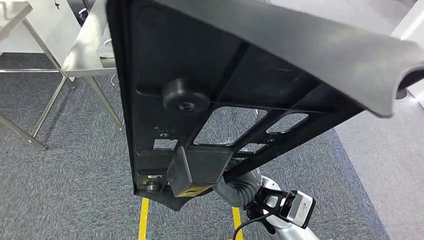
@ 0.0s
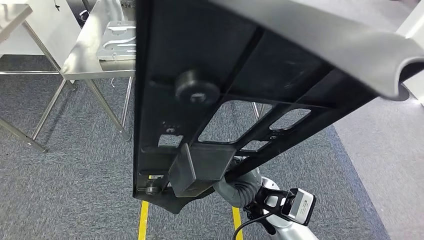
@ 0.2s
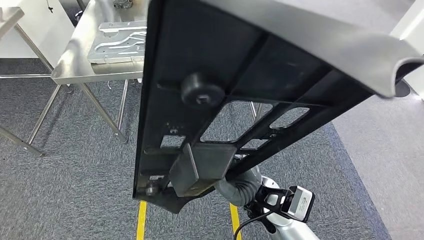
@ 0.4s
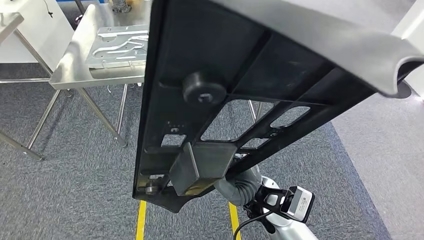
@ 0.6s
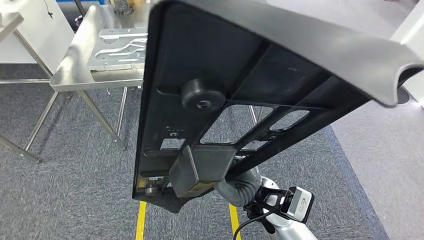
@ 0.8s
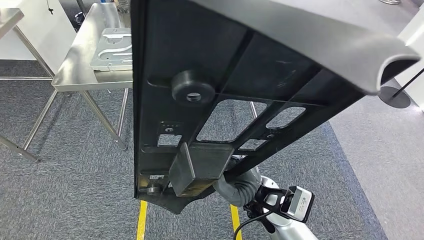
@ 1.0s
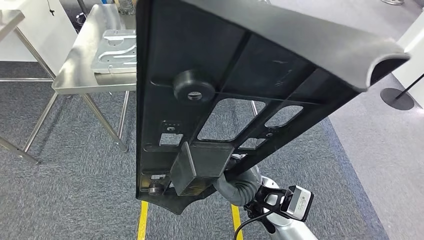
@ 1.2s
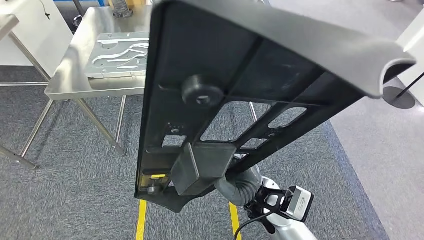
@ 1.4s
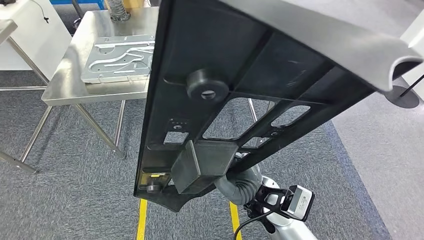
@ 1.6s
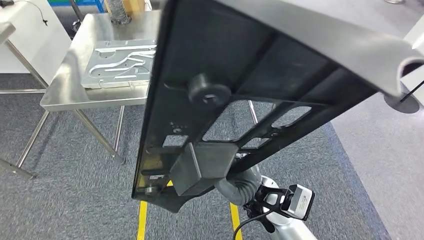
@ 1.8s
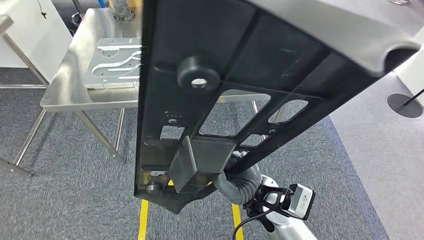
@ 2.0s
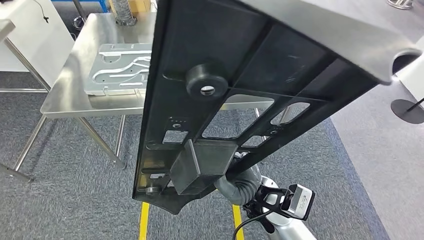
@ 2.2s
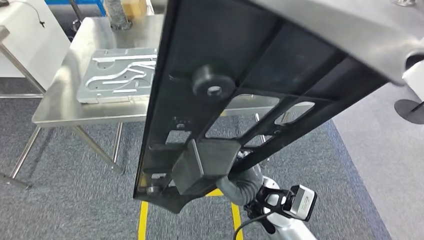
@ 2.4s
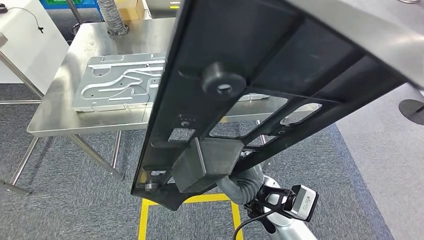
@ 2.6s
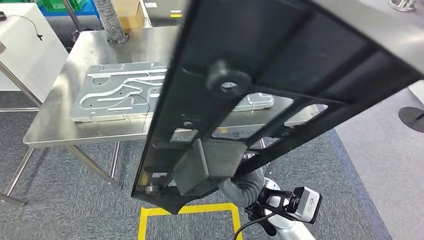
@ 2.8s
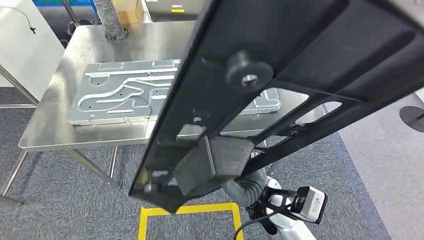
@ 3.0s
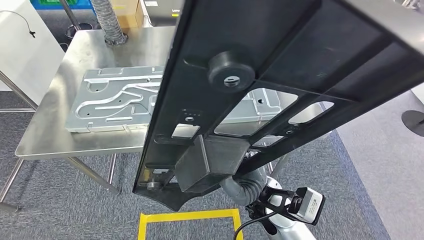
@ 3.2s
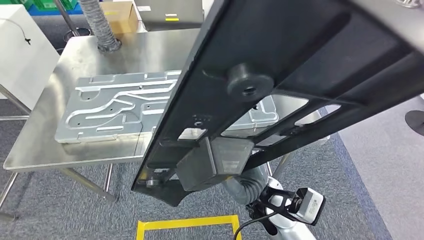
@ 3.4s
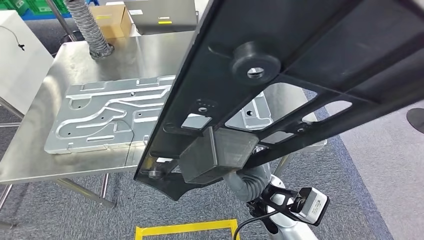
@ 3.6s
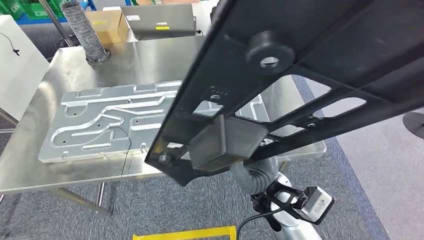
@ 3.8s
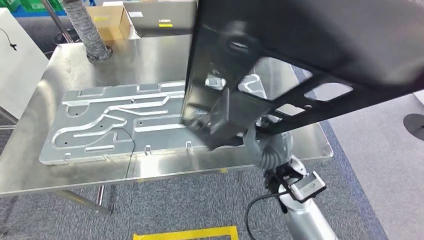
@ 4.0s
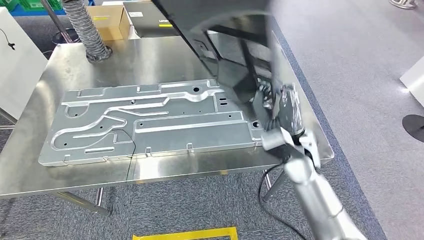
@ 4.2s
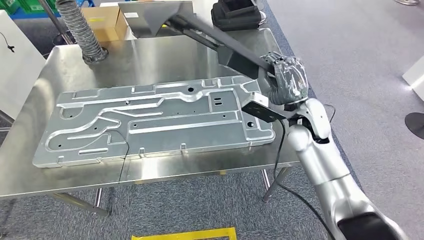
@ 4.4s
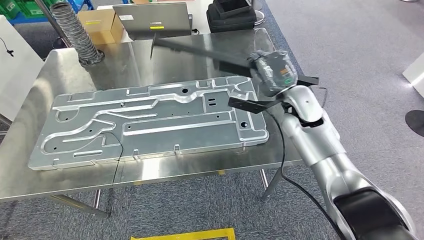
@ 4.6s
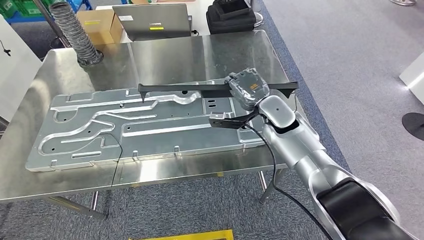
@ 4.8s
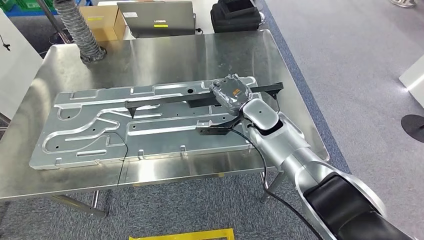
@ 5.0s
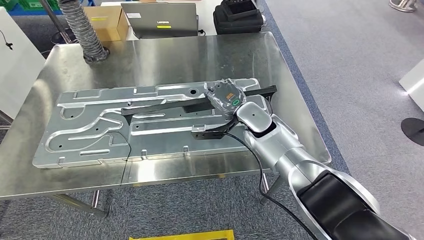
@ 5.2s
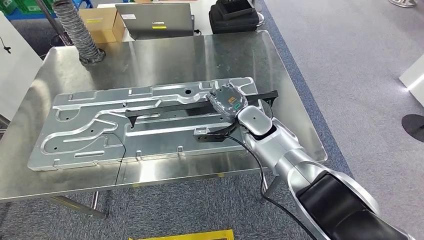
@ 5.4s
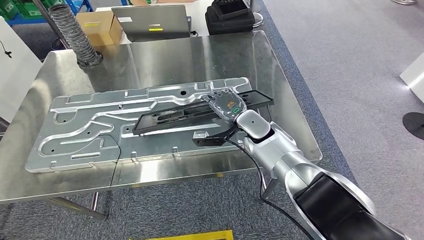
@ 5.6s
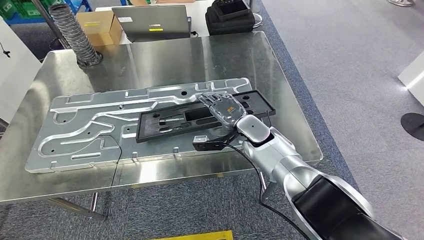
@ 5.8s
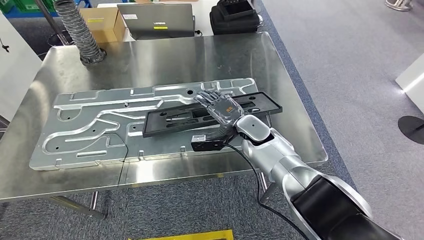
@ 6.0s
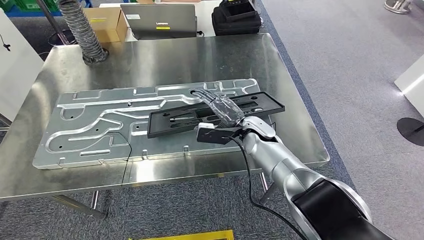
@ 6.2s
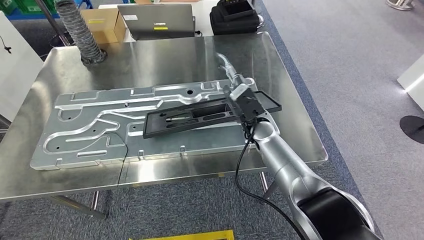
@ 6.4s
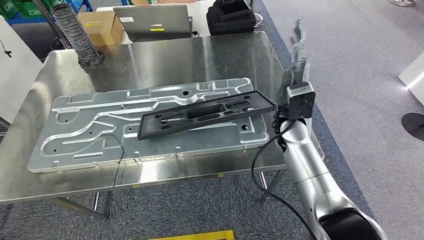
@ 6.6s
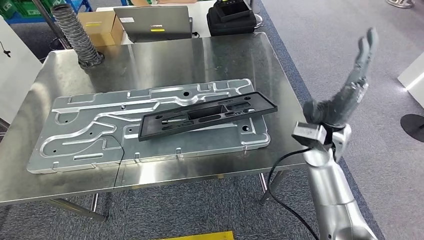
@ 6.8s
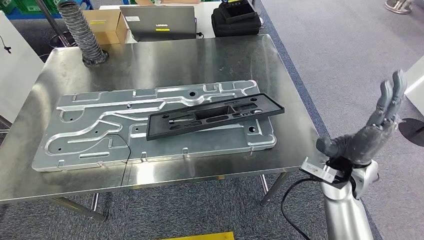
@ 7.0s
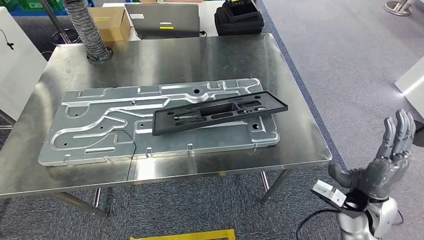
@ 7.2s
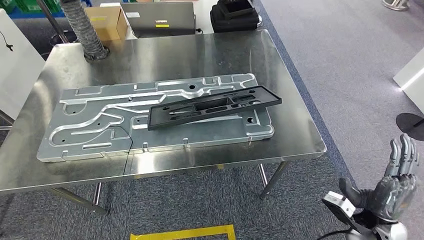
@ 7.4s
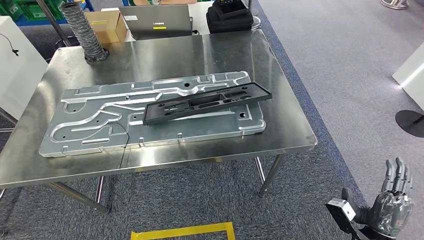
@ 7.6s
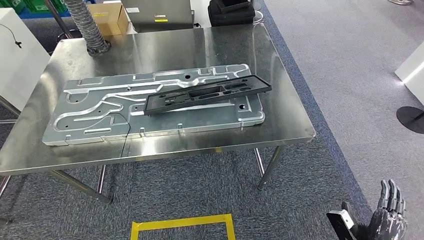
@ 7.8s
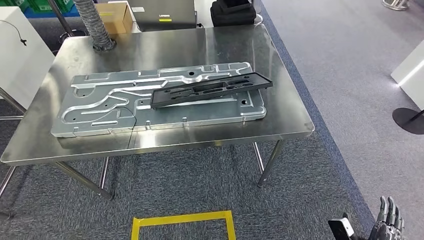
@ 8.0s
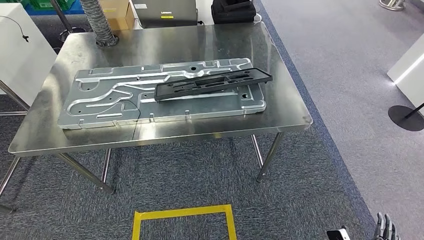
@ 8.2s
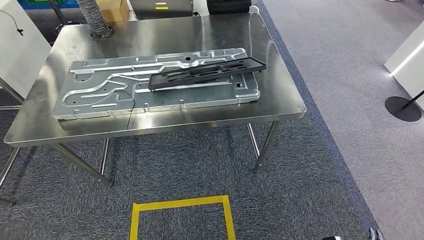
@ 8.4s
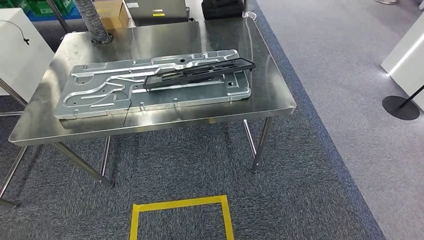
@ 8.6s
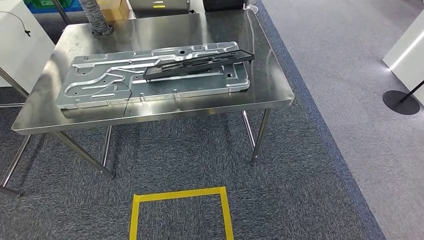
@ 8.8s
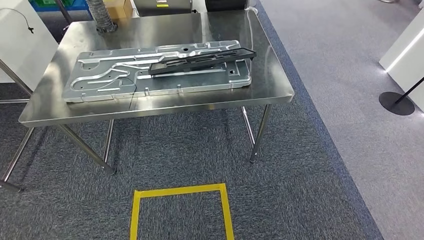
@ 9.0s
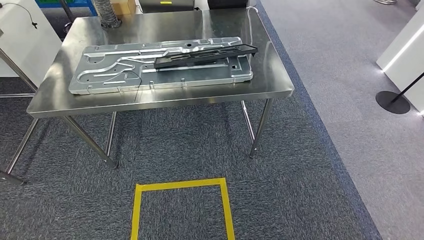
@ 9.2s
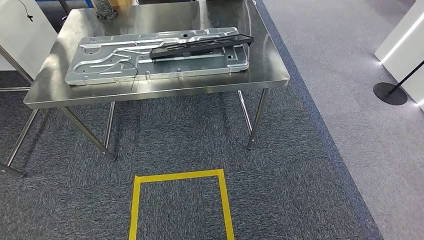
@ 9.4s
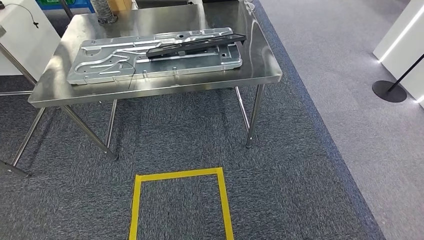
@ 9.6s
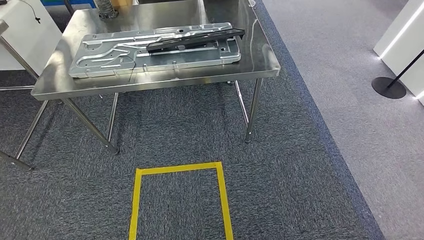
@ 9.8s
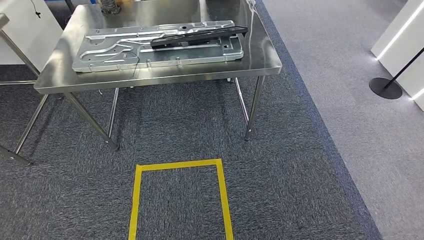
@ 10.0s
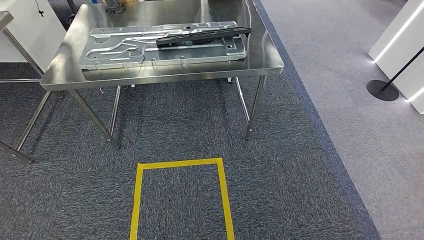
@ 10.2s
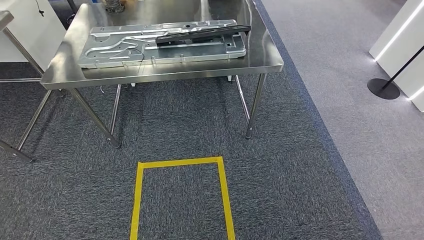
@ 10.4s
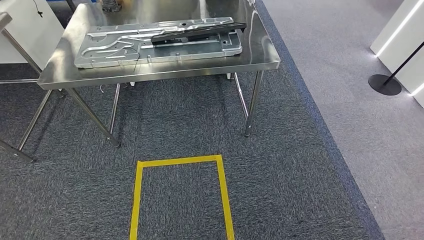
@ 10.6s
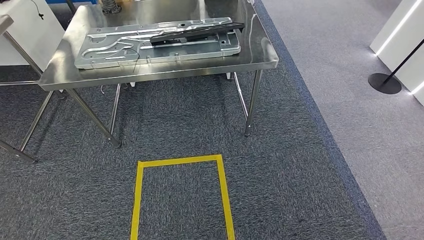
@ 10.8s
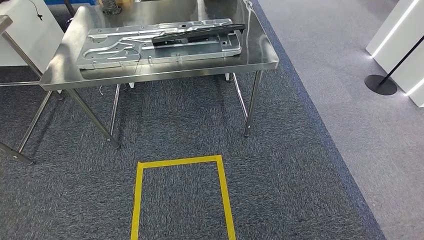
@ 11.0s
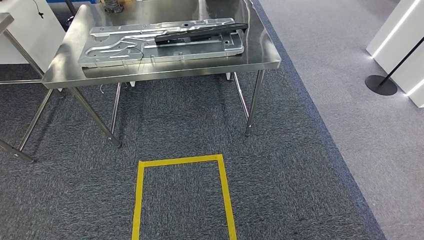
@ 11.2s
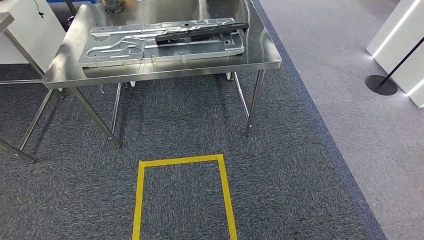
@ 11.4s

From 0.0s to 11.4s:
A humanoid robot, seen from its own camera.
Step, from 0.0s to 3.6s: Move the large material to the workbench.
Step, from 3.8s to 7.8s: Insert the large material into the corresponding slot on the workbench.
Step, from 8.0s to 11.4s: Return to the initial position at the shelf.
From 10.0s to 11.4s: The hands stay close to where they were, moving slightly.

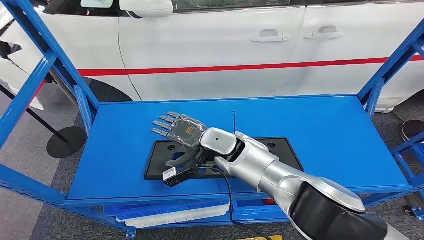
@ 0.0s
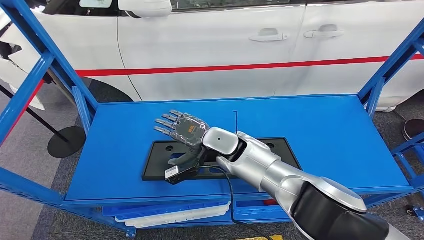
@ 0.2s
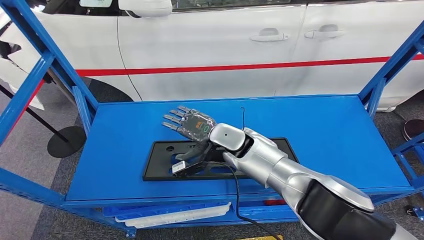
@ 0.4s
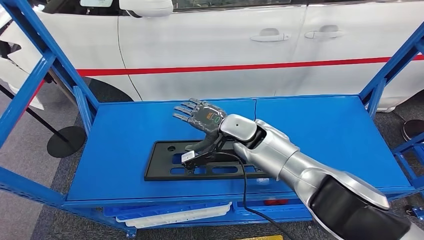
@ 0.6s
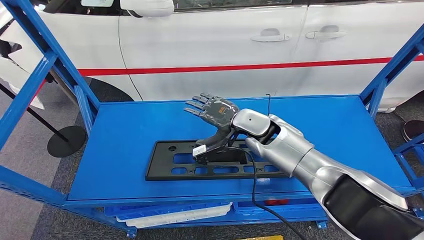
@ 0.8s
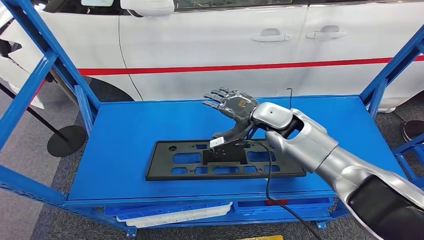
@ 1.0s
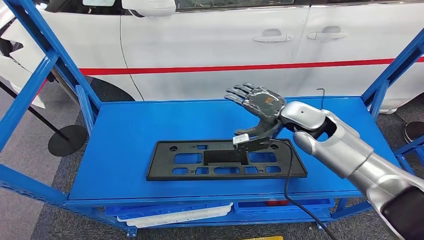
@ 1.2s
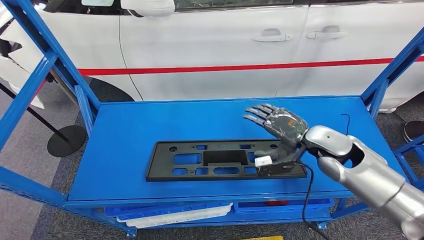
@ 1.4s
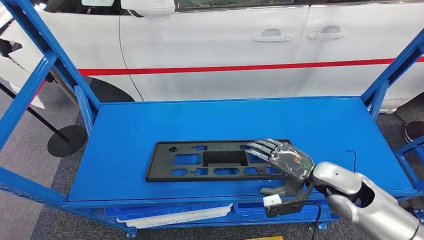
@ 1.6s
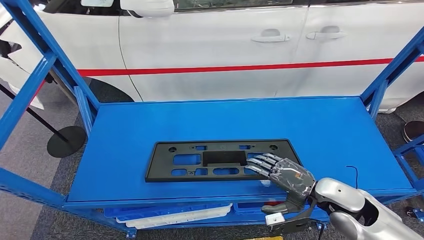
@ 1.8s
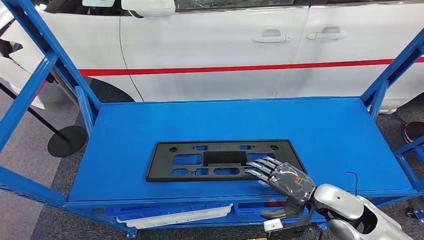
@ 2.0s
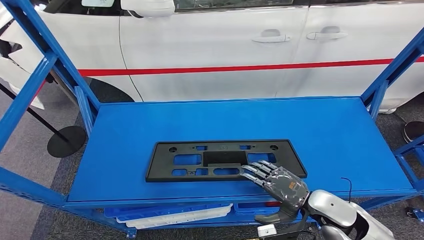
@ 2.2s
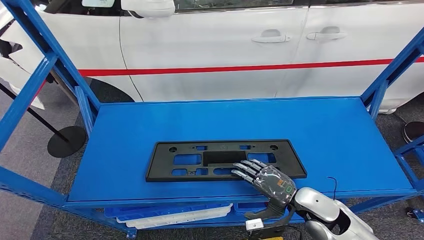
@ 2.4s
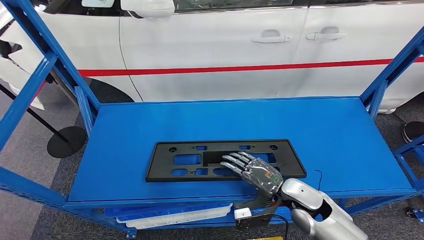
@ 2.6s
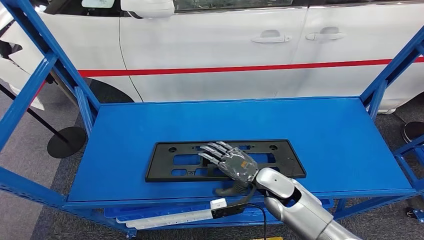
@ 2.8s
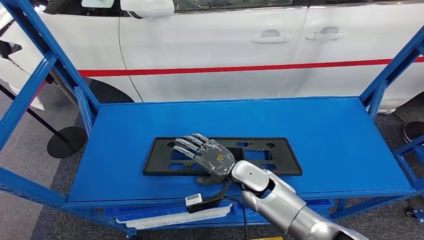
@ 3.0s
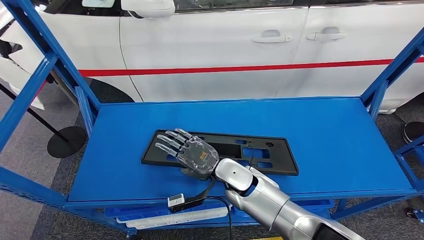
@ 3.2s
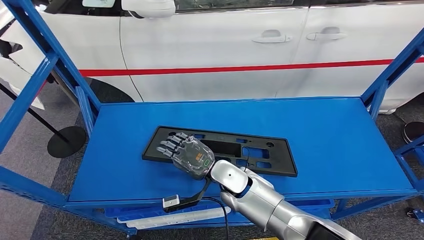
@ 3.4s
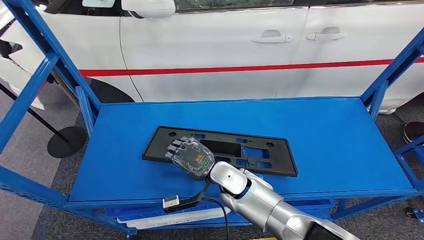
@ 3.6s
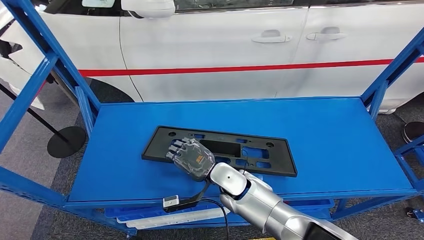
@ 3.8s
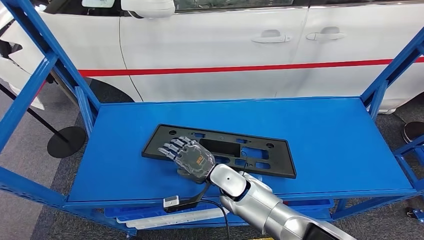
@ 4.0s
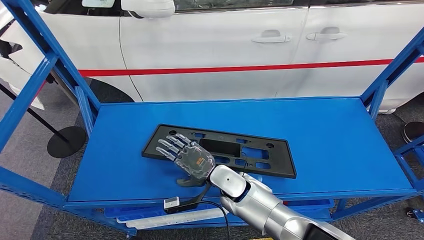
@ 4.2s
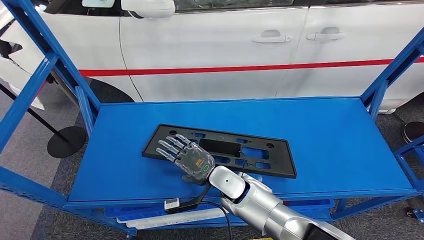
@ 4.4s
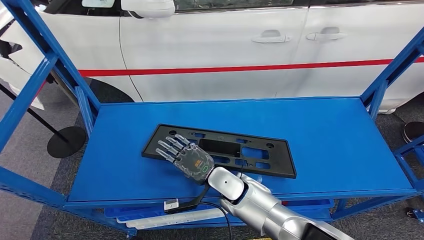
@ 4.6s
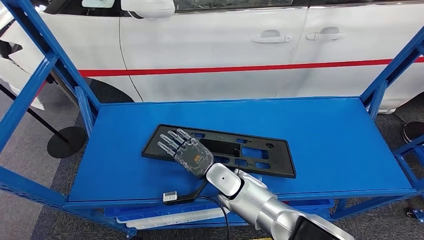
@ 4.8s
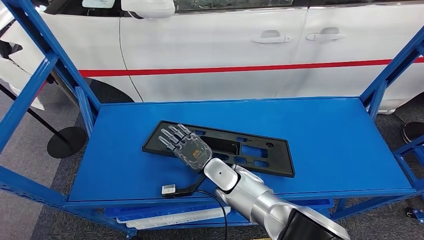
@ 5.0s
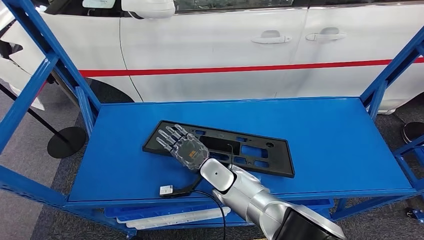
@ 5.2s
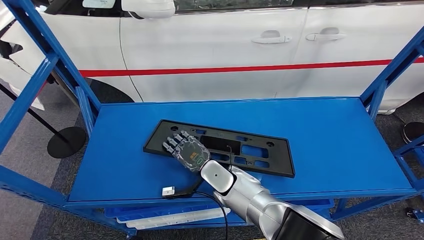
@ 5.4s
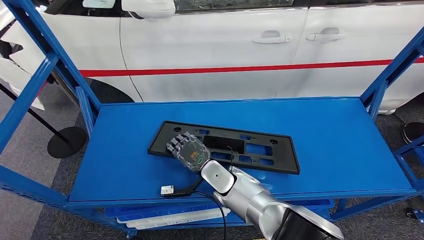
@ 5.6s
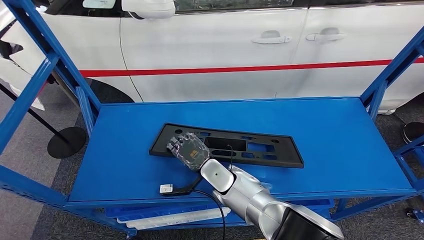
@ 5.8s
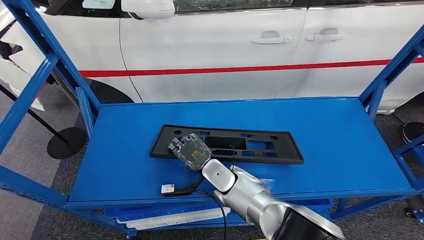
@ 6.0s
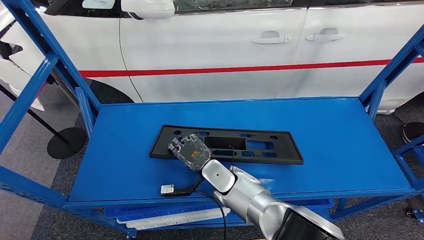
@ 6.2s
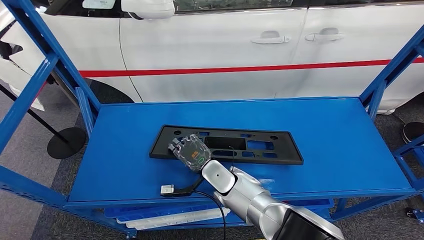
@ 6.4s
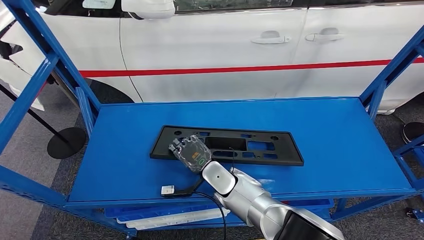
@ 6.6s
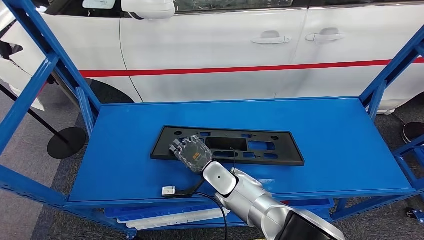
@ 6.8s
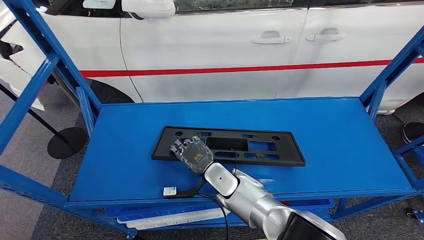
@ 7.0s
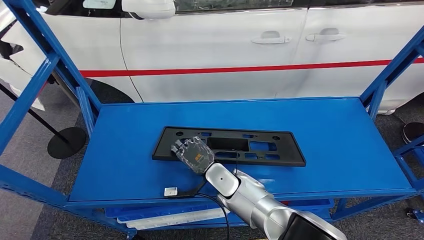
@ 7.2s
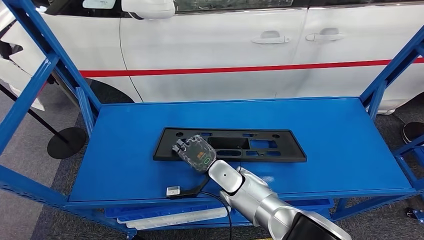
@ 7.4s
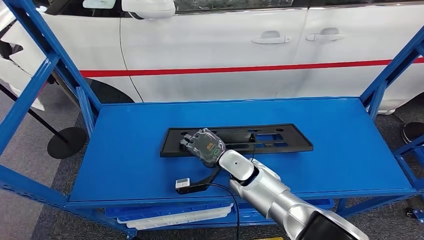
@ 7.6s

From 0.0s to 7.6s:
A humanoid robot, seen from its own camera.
From 3.0s to 4.6s: The right hand moves to the left, roughly 5 cm.
From 4.6s to 6.0s: The hands stay close to where they were, moving slightly.
From 6.0s to 7.6s: The right hand changes place by roughly 5 cm.
